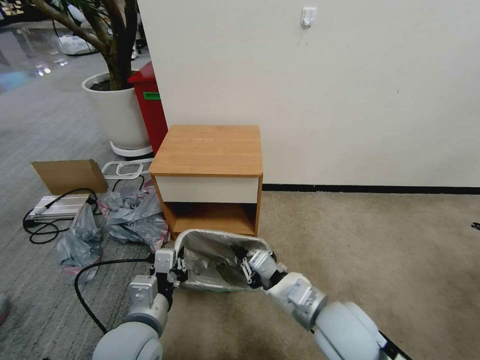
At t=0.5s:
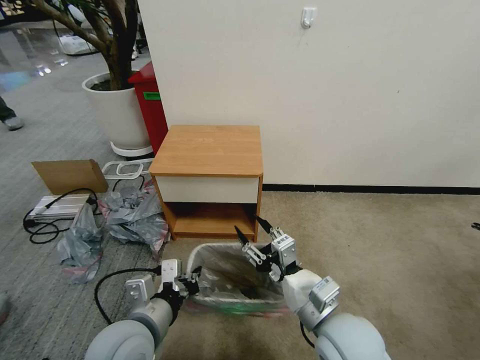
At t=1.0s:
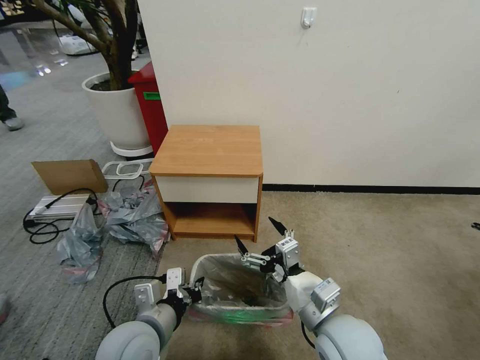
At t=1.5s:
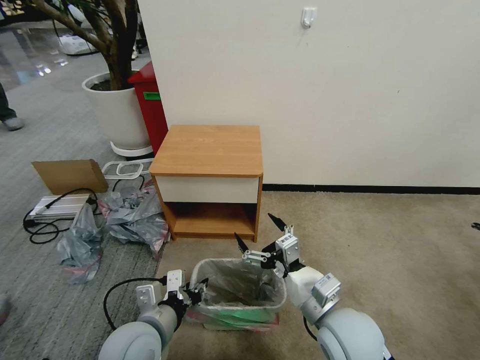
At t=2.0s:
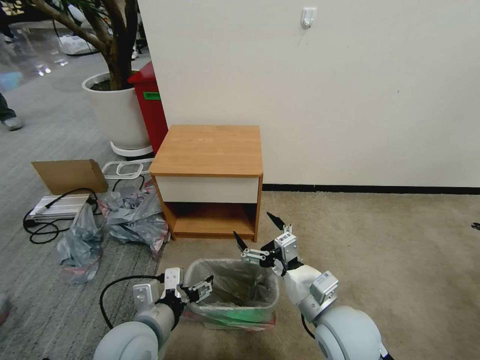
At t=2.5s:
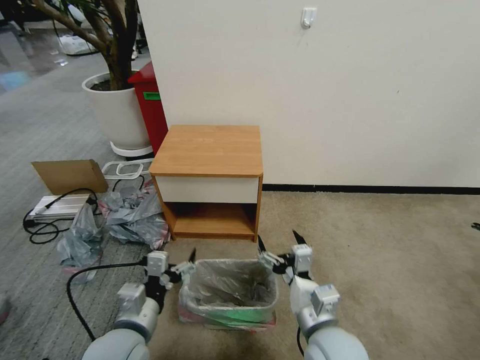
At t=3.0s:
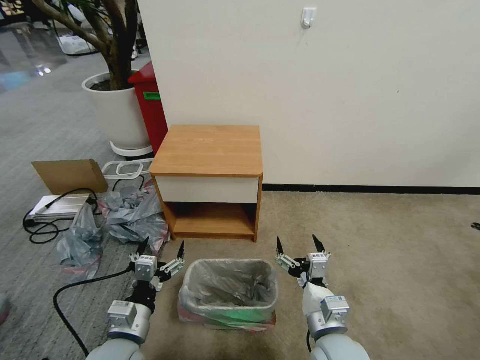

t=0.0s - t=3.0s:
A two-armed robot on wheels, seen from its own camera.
Task of the whole recording: Pick up the garbage bag from the table and place it over the trash can.
t=0.0s - t=1.5s: The right gripper opens up.
t=1.5s - t=3.0s: The grippers both shift downward by some 5 cm. The left gripper opens up.

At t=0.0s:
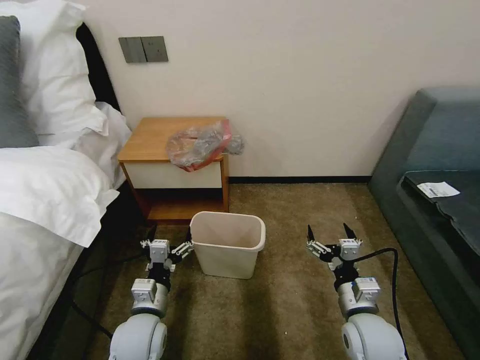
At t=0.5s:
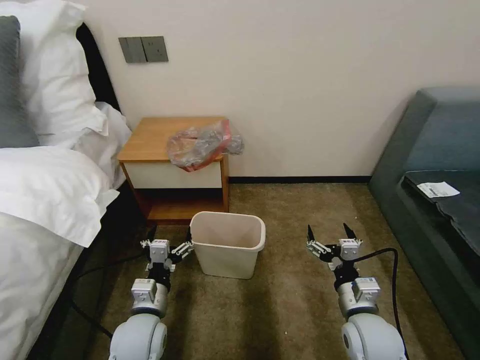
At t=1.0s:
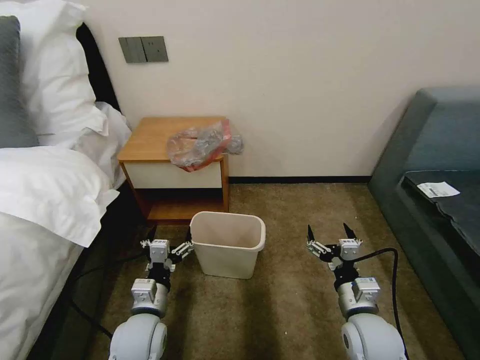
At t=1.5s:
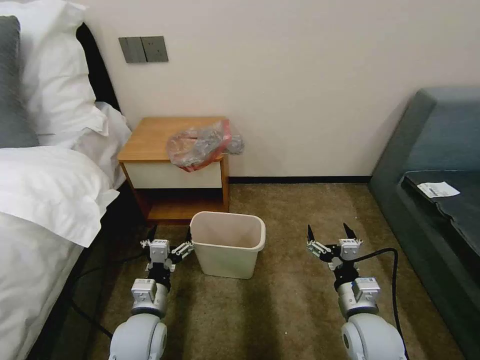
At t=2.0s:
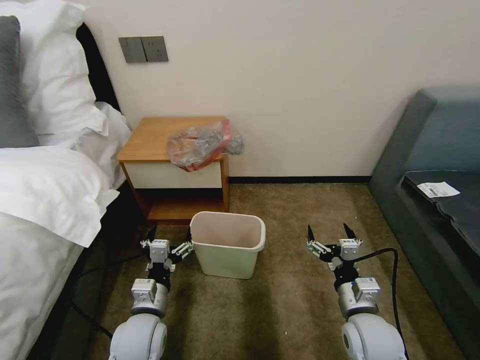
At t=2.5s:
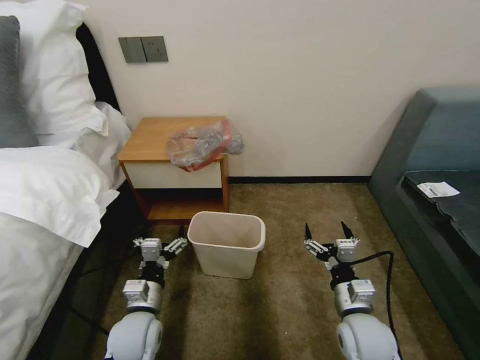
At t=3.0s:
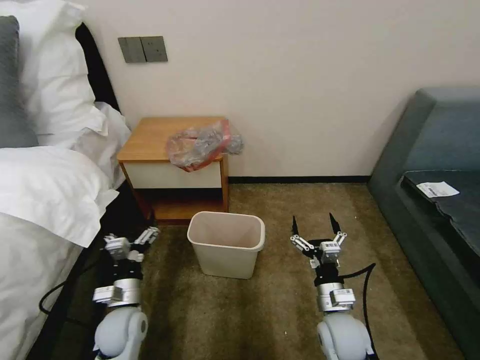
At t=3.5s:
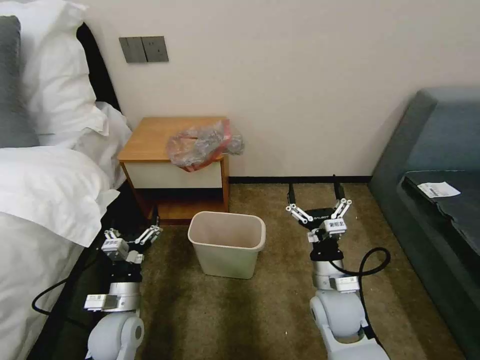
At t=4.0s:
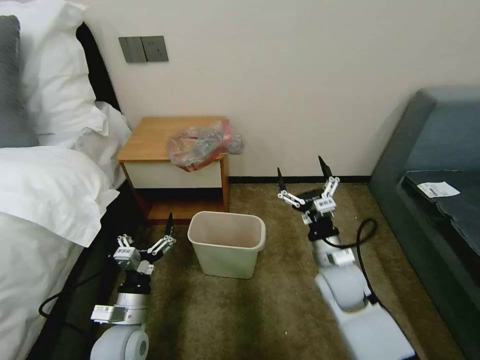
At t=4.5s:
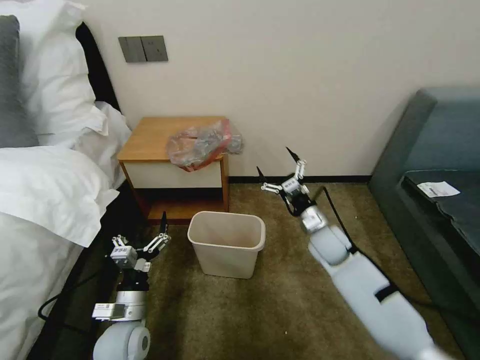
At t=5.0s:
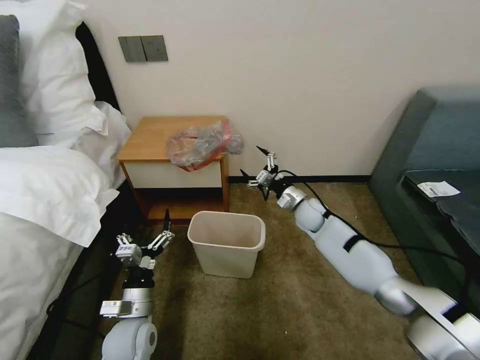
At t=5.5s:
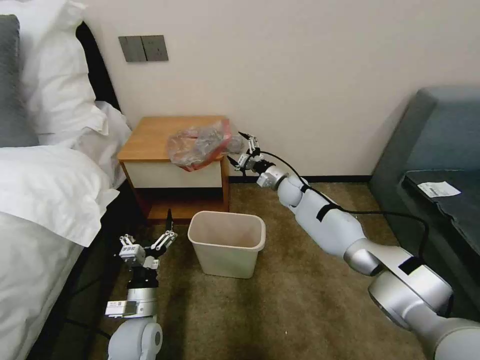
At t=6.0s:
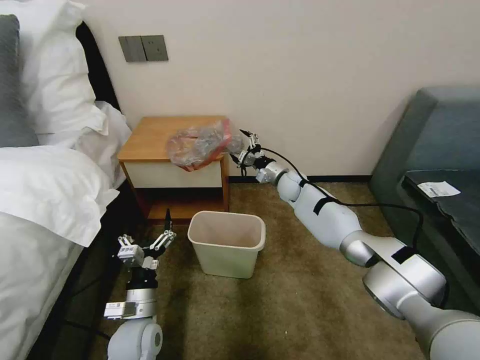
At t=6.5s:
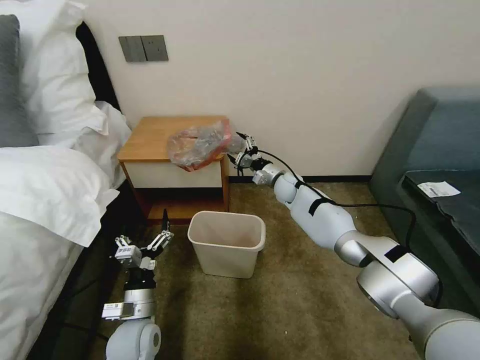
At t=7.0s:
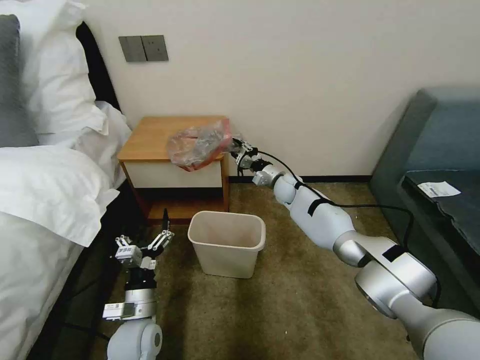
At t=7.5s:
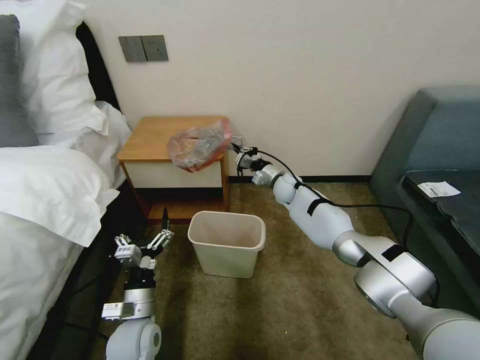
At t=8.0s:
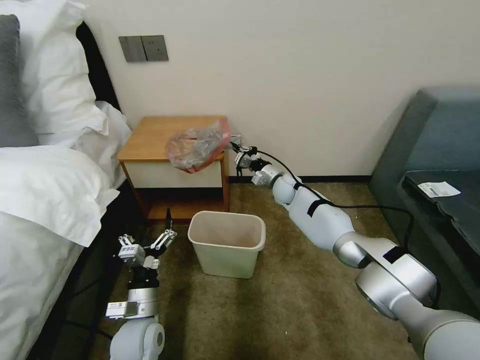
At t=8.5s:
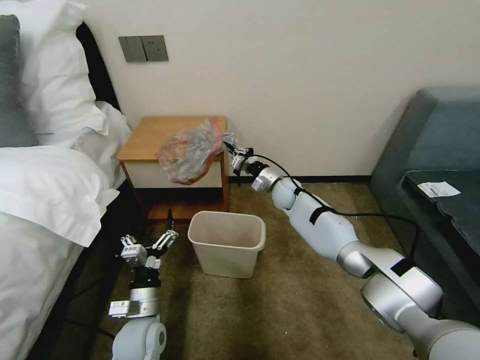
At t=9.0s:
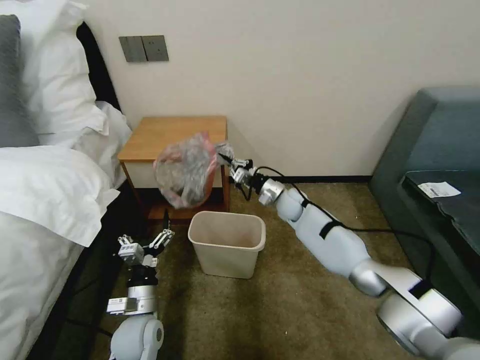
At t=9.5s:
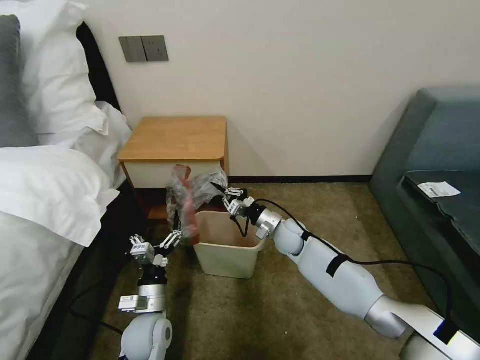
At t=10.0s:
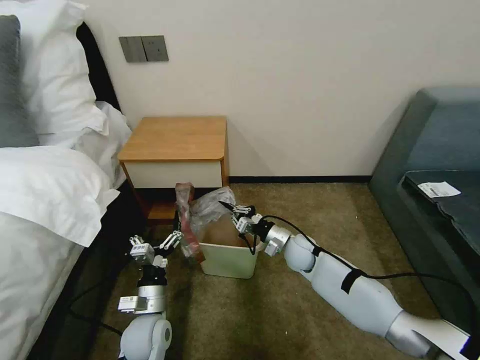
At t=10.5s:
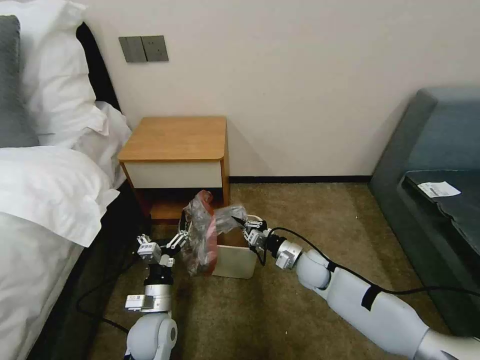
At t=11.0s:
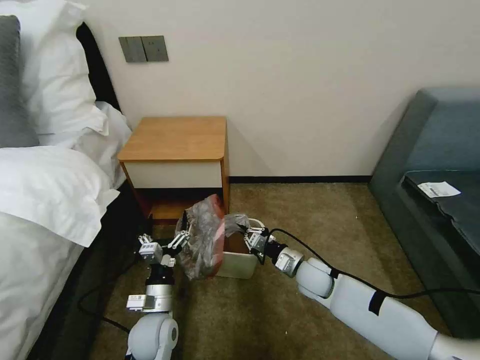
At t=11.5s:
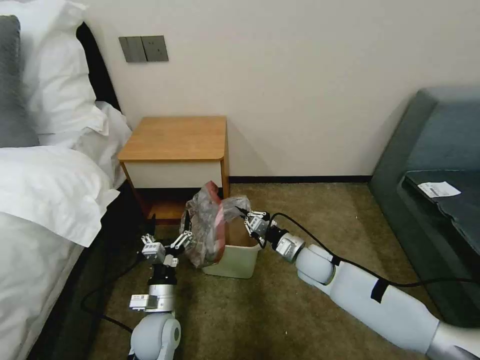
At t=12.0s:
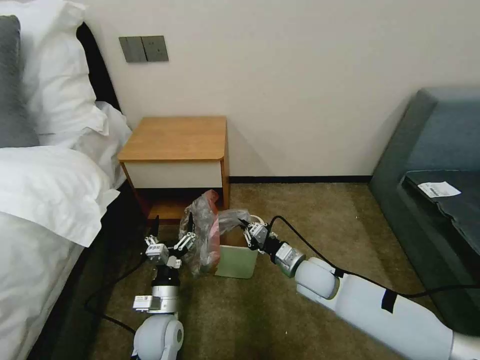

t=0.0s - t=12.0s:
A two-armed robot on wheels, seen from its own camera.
Task of the whole recording: Pick up the garbage bag from the table and place it over the trash can.
t=2.0s - t=4.0s: The right gripper is displaced forward by about 10 cm.
t=4.0s - t=6.0s: The right gripper travels forward by roughly 30 cm.
t=6.0s - t=8.0s: The right gripper closes up.
t=8.0s - t=10.0s: The right gripper shifts roughly 20 cm backward and downward.
t=10.0s - t=12.0s: The right gripper shifts approximately 10 cm backward.

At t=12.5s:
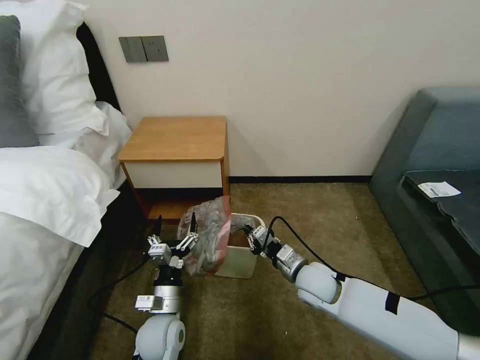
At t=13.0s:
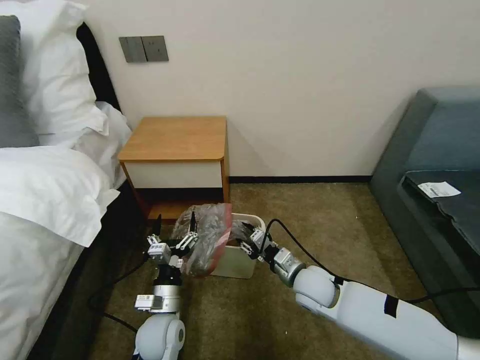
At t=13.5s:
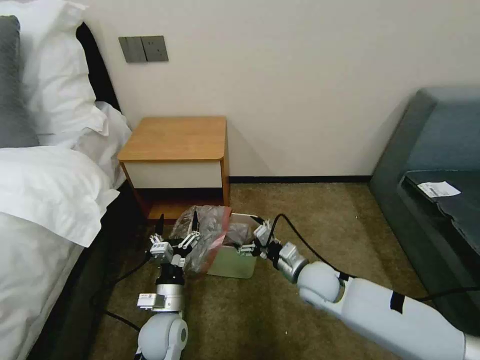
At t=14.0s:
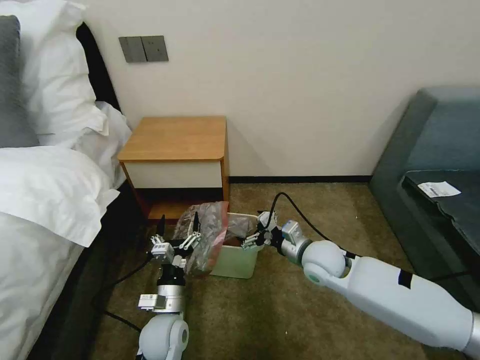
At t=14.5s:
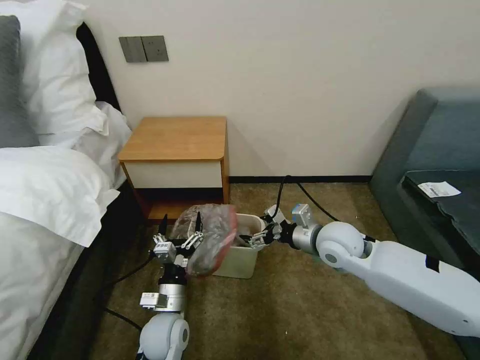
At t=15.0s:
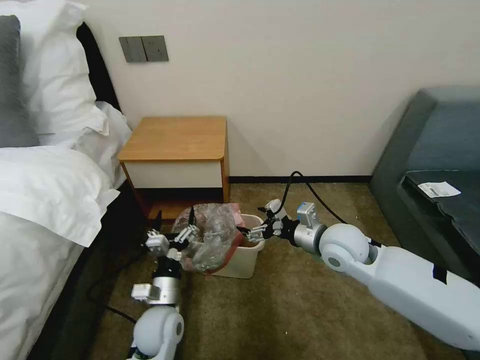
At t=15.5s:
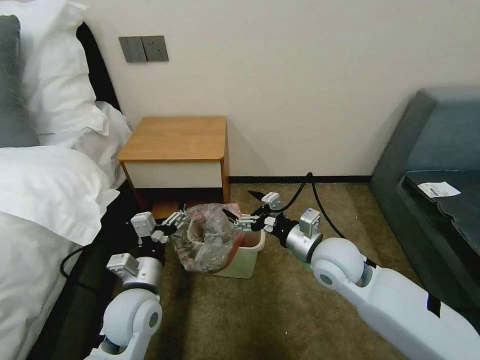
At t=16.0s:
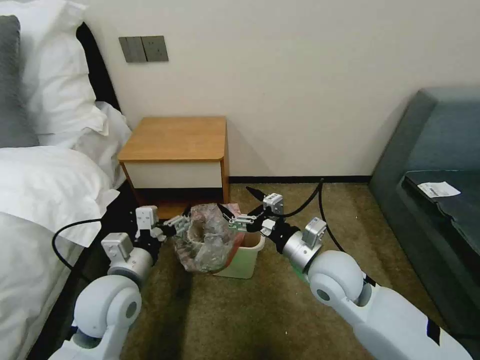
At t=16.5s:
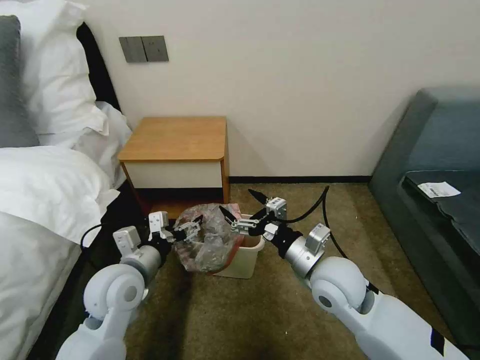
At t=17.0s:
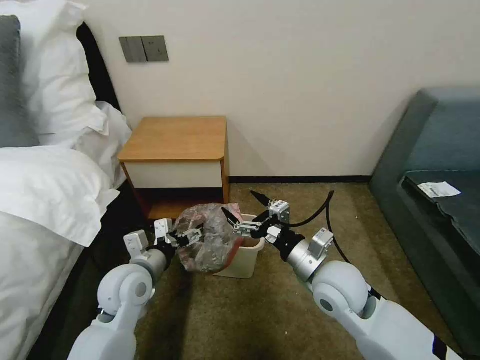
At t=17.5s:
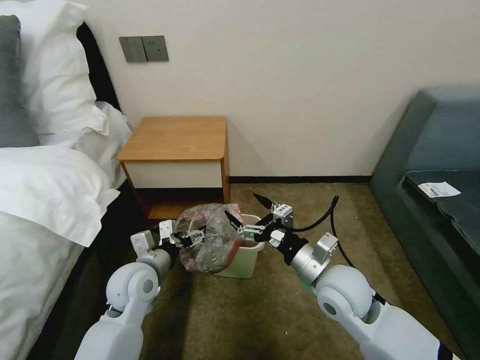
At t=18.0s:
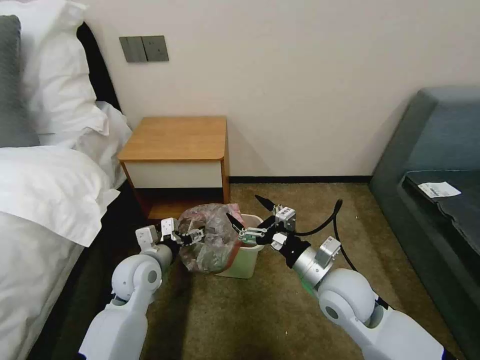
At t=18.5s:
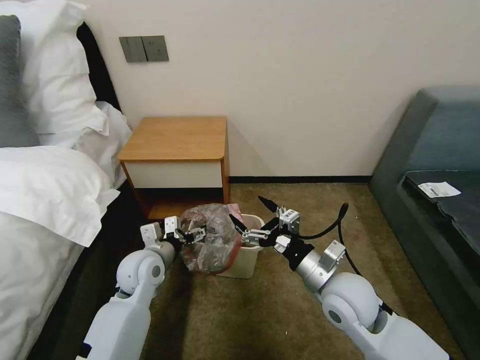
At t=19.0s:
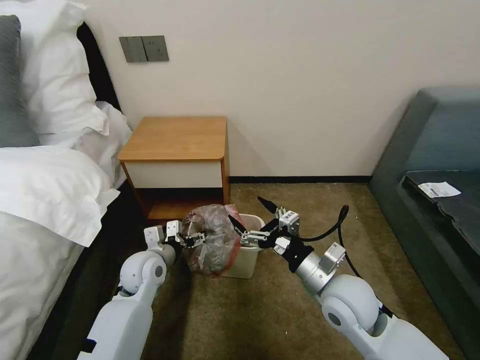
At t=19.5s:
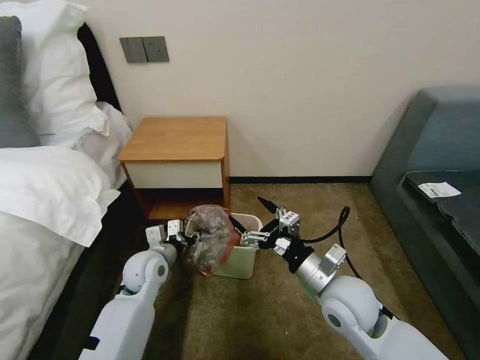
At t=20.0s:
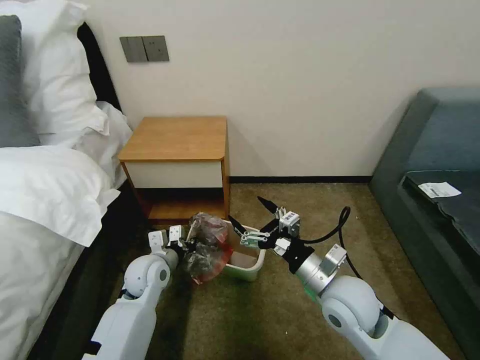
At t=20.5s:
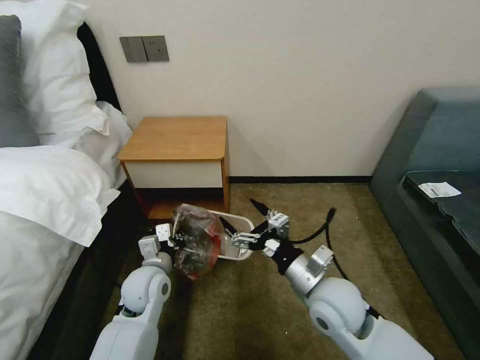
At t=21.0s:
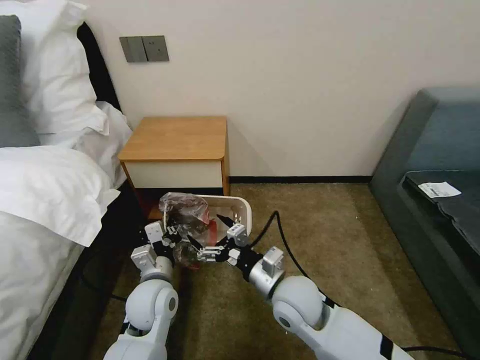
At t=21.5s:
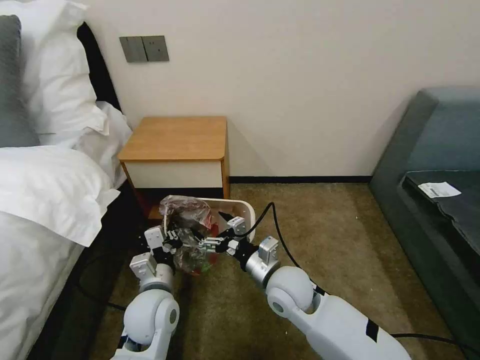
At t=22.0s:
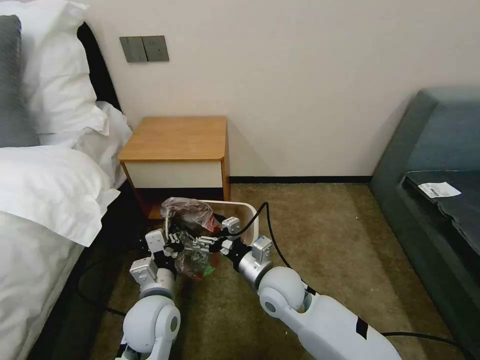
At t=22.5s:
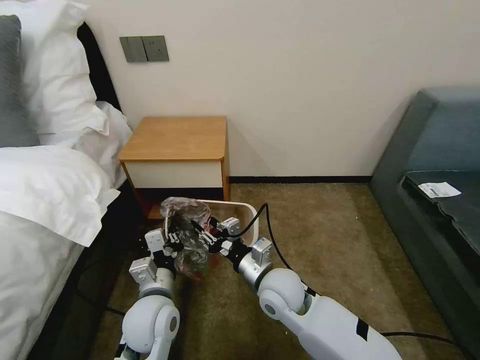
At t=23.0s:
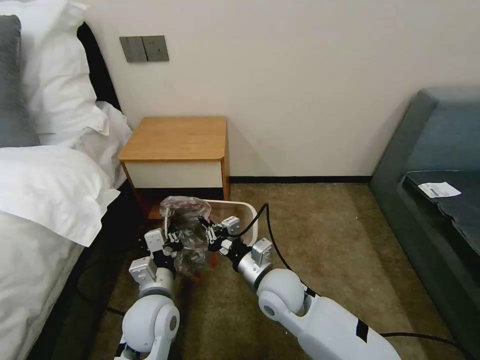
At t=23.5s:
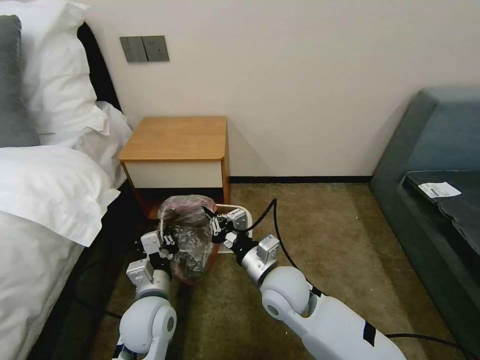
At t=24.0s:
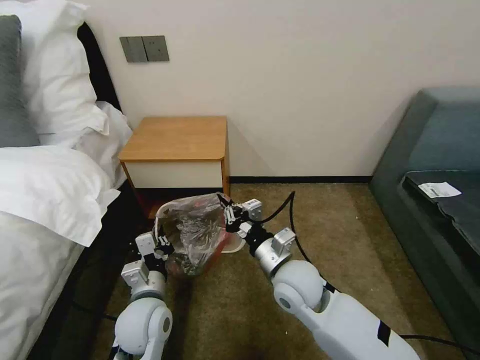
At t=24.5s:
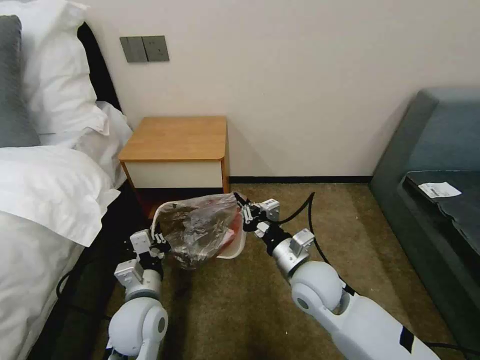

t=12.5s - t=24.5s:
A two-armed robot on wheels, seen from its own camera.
Task of the whole recording: Pick up the garbage bag from the table and place it over the trash can.
t=12.5s - t=14.5s: The right gripper travels upward by some 10 cm, and opens.
t=14.5s - t=16.5s: The left gripper shifts approximately 15 cm upward. Meanwhile the right gripper moves backward, roughly 10 cm.
t=16.5s - t=18.5s: The left gripper shifts roughly 10 cm downward and forward.
t=18.5s - t=20.5s: The left gripper closes up.
t=20.5s - t=22.5s: The left gripper goes about 5 cm backward; the right gripper heads to the left, covering about 10 cm, and closes its fingers.
t=22.5s - t=24.5s: The right gripper goes about 5 cm to the right, and closes up.
